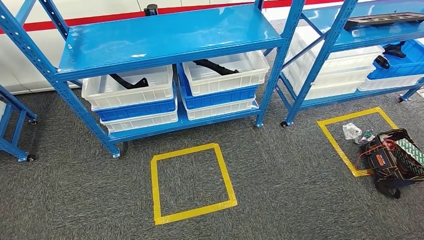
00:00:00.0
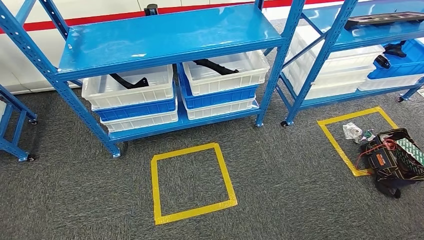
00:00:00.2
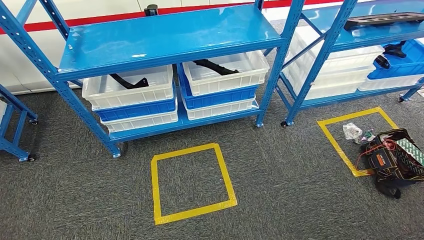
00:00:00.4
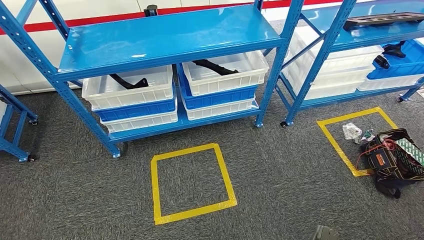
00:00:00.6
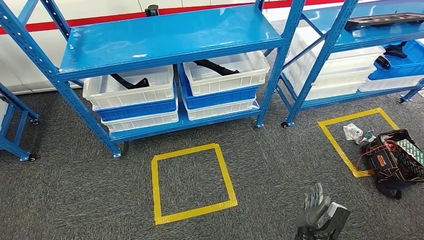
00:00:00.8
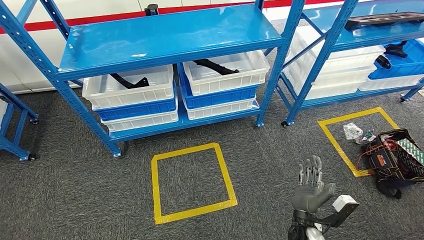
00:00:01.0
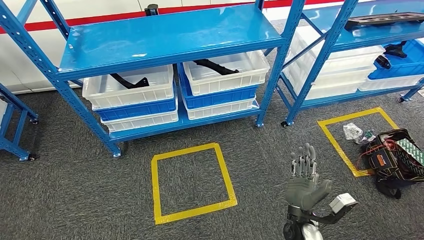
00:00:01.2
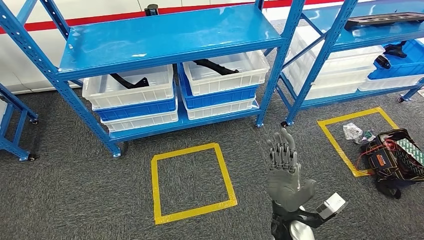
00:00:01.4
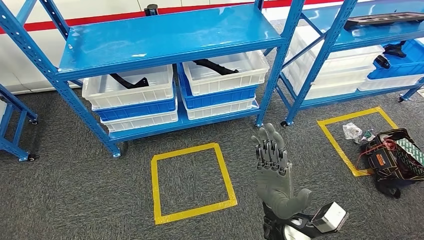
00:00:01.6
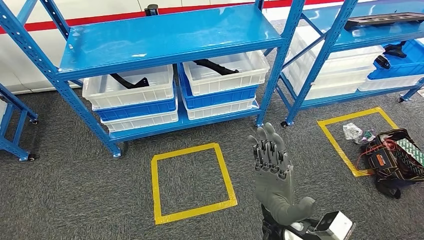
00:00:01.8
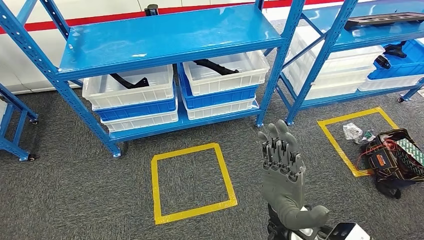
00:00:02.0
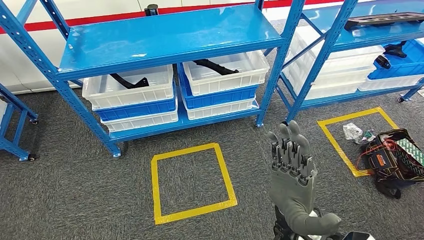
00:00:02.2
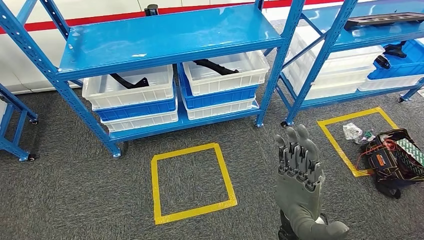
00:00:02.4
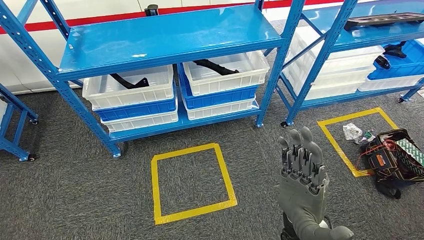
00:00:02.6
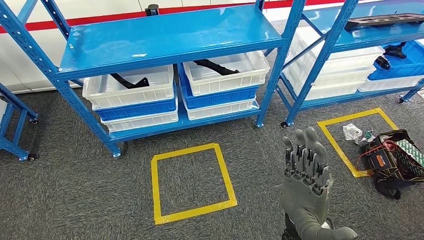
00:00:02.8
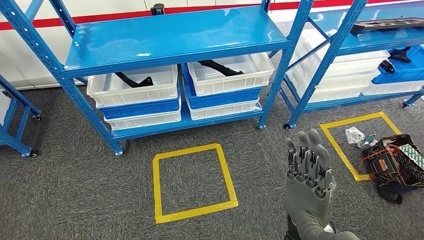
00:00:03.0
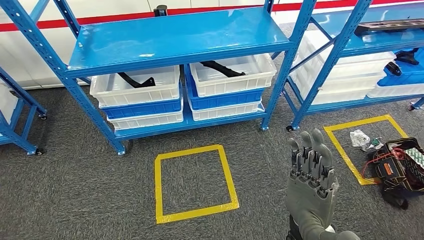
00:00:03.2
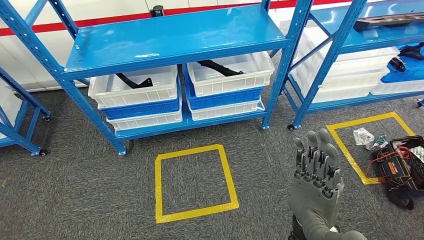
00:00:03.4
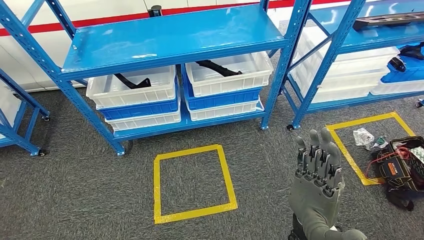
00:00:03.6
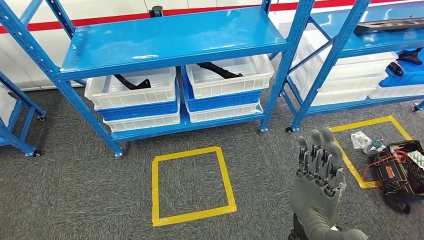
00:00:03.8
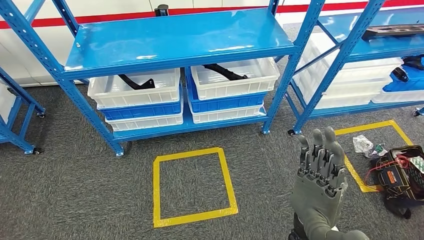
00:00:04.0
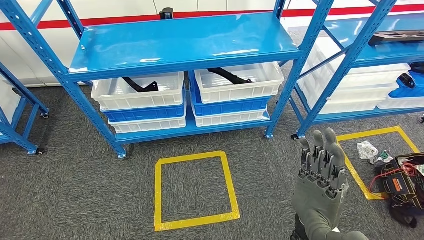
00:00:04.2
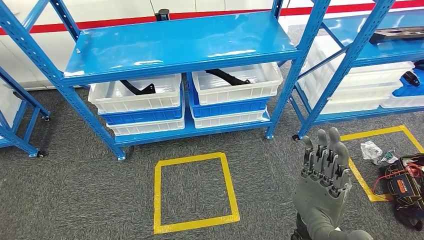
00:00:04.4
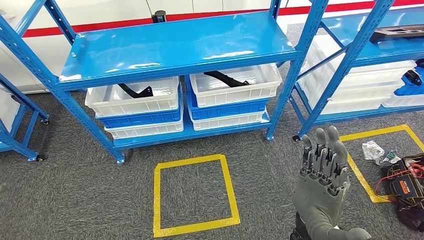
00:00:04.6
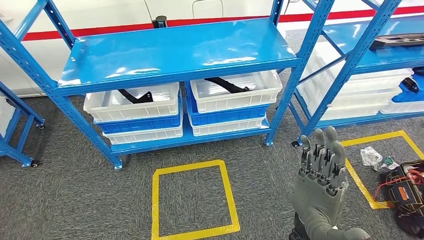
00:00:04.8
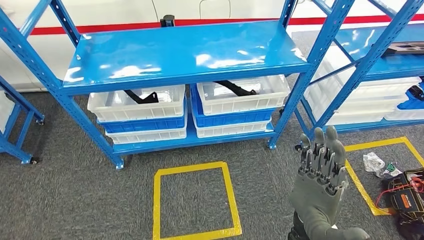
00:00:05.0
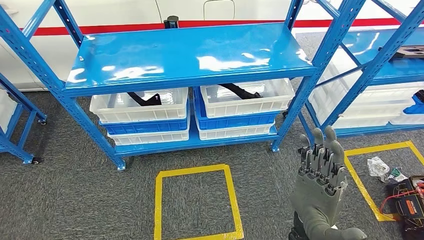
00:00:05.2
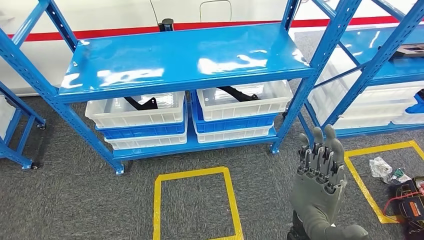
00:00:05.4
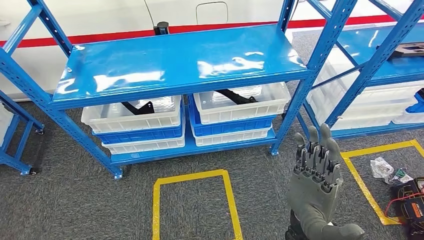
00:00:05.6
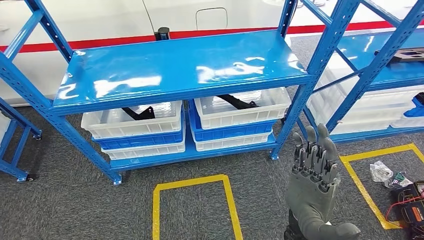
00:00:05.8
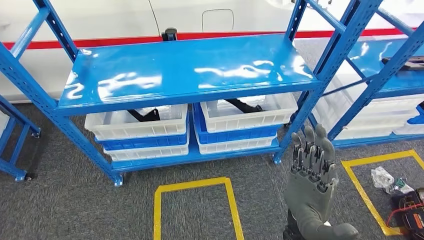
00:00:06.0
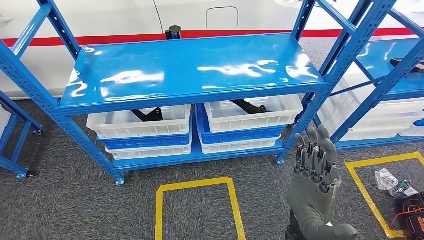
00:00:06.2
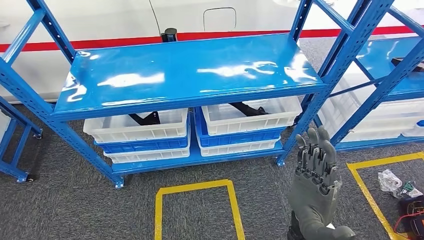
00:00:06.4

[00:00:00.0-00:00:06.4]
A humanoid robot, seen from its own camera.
Step, 00:00:00.0 to 00:00:06.4: Move to the initial position of the shelf.
00:00:00.0 to 00:00:01.6: The right hand heads upward and forward, covering some 30 cm.
